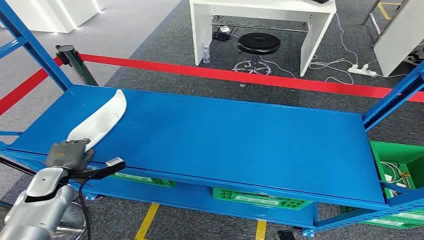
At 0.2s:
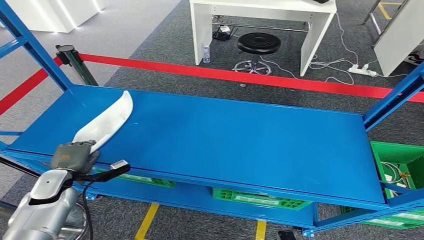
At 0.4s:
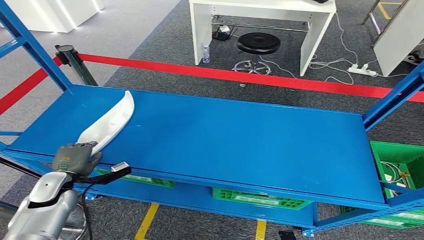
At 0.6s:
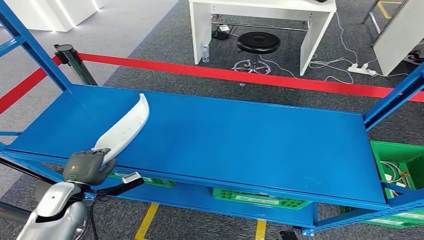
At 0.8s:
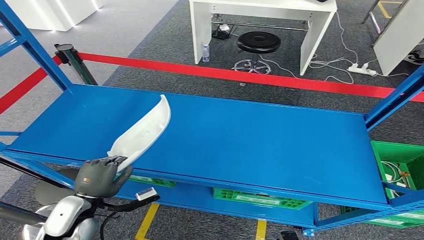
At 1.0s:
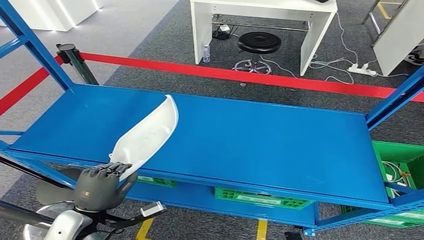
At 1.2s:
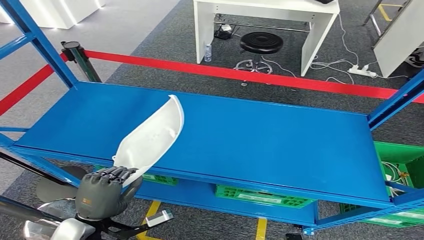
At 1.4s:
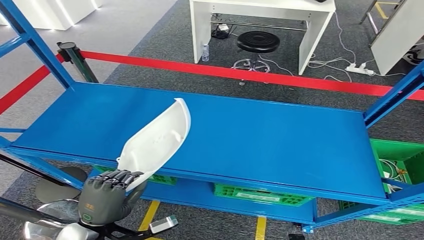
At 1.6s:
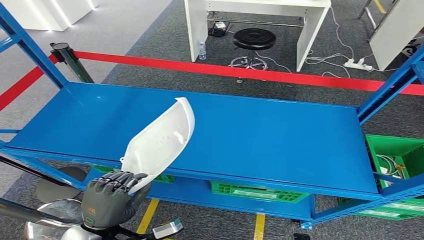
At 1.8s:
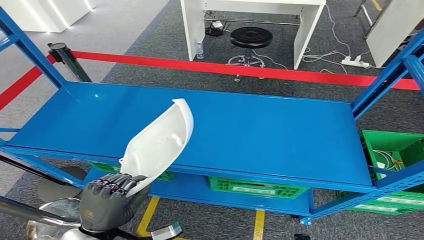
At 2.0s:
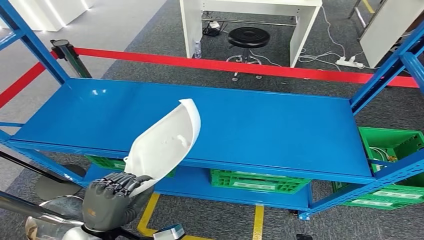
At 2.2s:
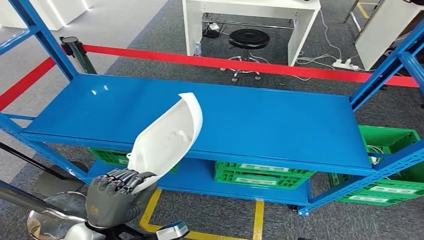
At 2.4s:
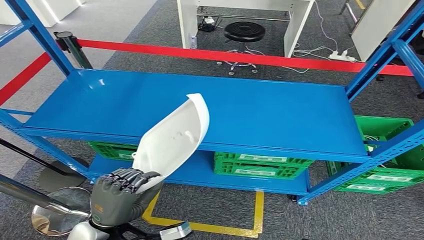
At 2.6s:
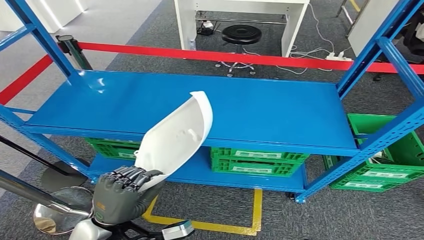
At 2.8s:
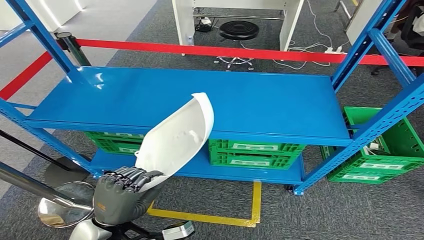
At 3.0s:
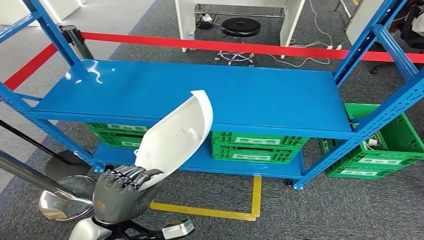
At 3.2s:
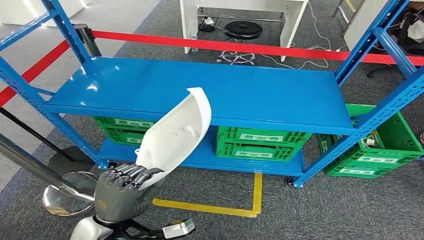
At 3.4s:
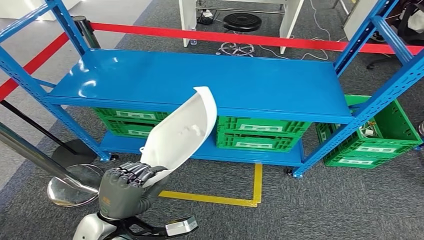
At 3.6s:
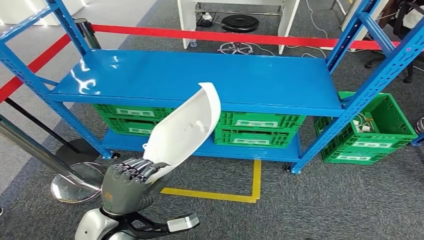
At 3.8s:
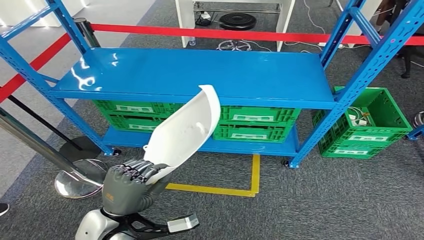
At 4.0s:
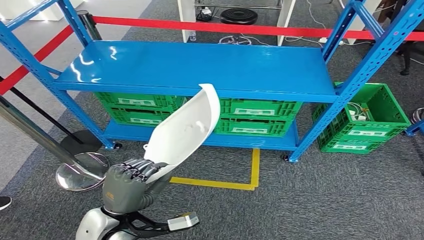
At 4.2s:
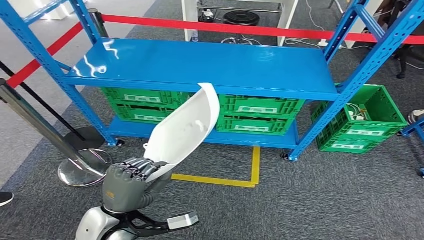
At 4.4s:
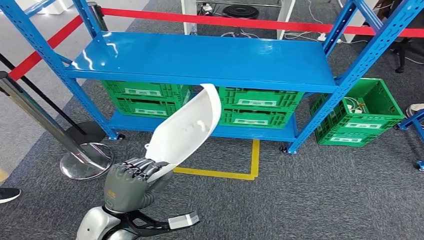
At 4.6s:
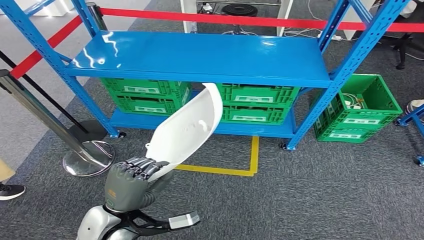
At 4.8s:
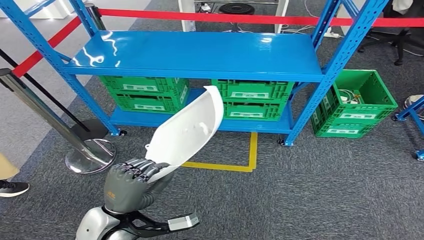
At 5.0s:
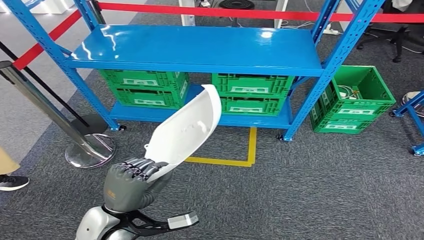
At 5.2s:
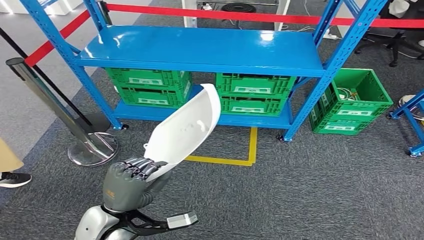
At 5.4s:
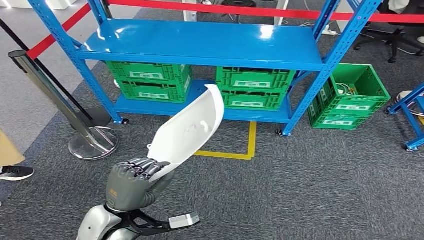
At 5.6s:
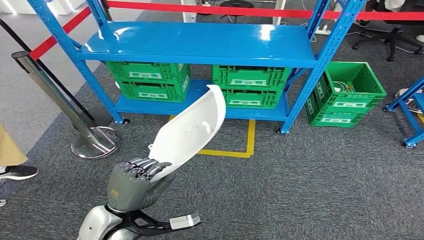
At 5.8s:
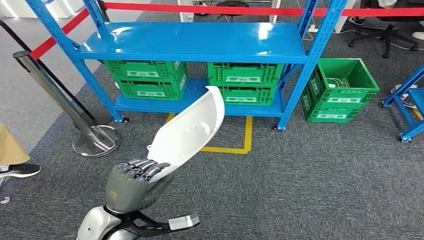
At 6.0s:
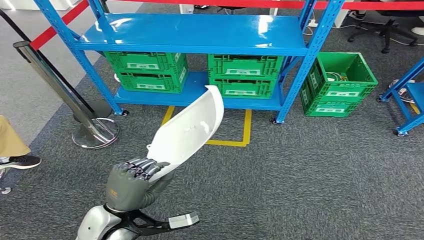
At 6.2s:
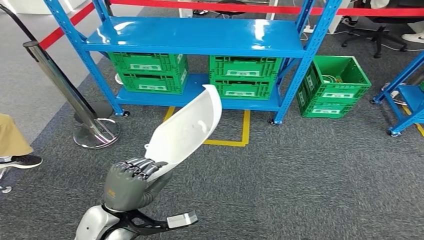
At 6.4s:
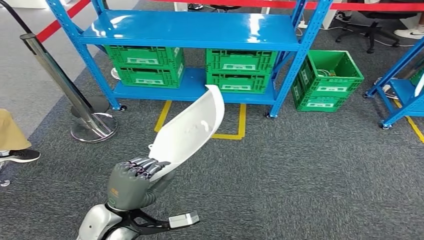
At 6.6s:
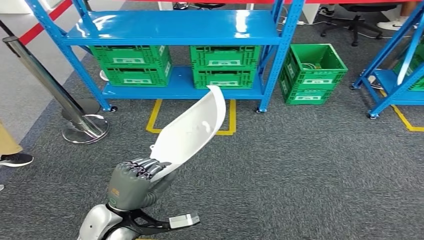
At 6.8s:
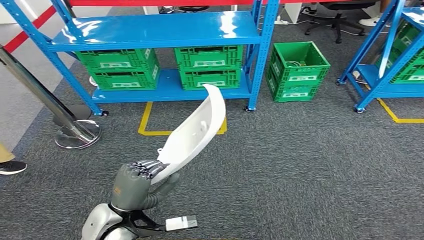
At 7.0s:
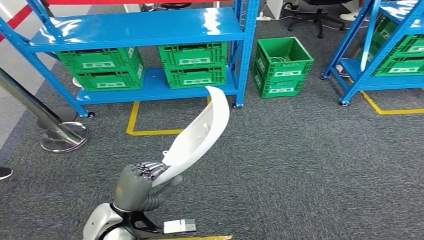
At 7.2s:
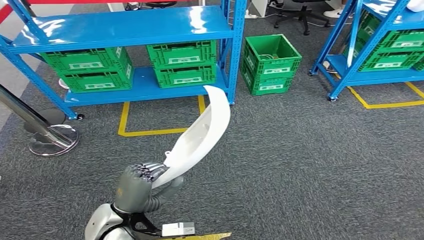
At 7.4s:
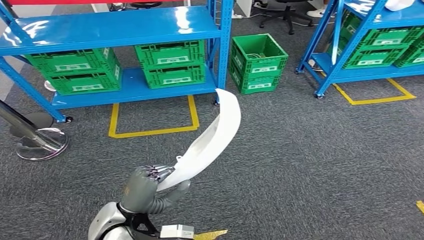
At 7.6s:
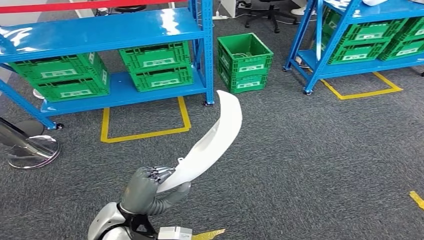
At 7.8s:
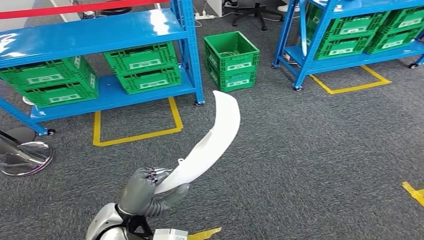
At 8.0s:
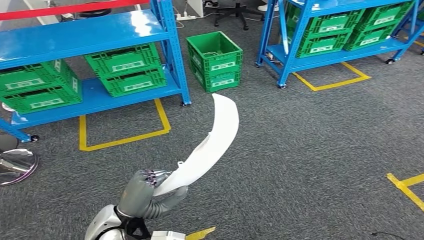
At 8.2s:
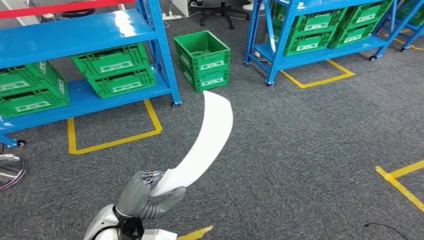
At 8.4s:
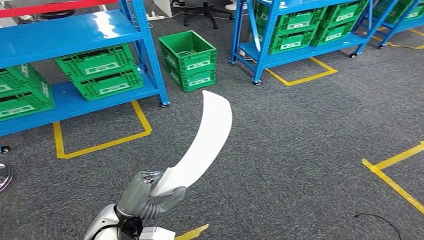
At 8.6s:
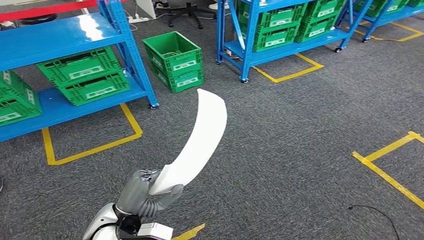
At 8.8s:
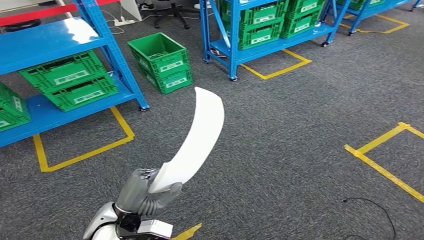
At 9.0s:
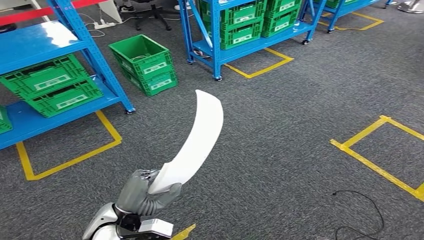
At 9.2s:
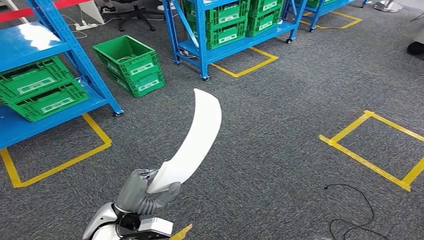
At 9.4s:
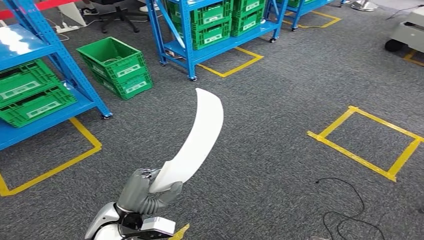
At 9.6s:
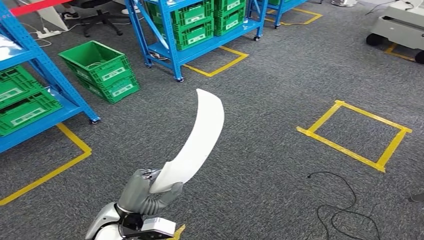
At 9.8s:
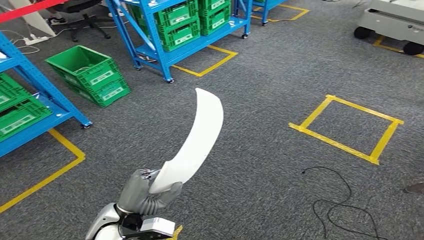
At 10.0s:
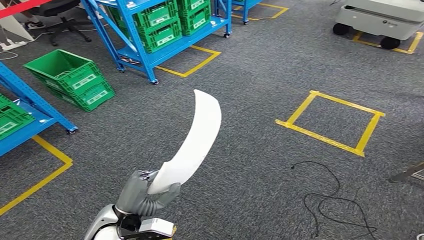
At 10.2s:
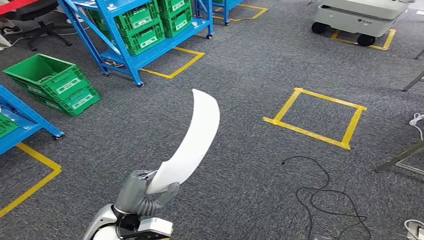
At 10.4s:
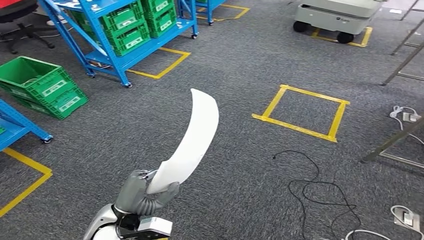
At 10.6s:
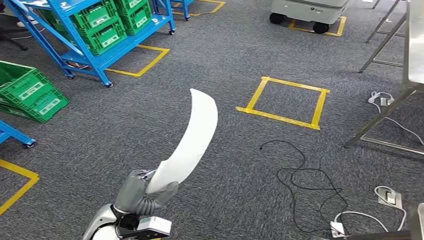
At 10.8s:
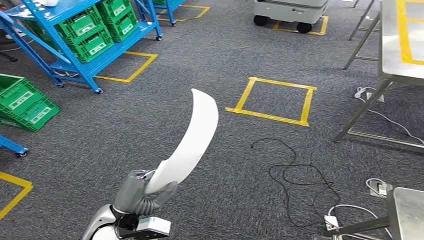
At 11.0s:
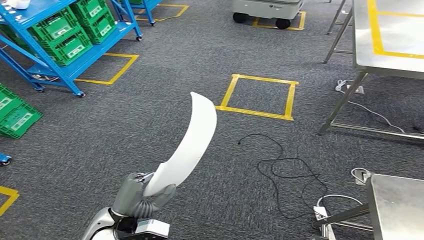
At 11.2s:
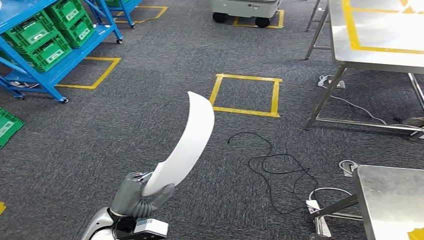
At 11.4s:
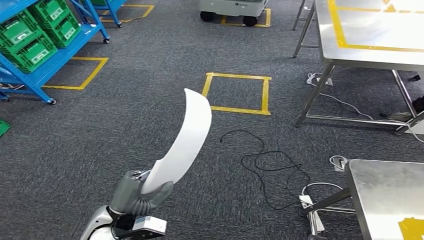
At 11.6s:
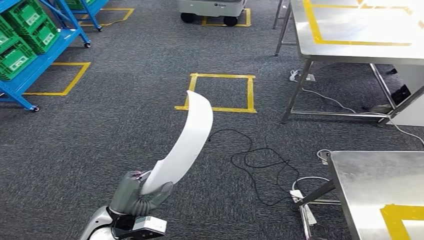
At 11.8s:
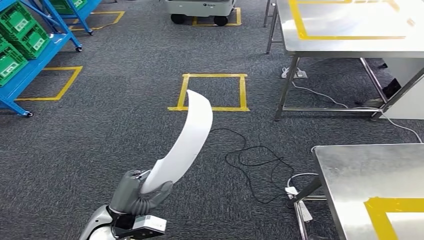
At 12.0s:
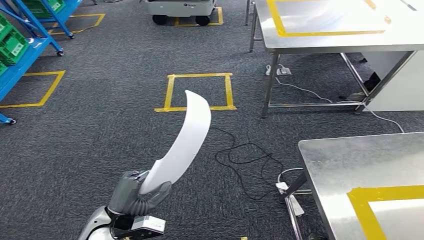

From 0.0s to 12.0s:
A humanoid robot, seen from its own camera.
Step, from 0.0s to 1.4s: Pick up the small component from the shelf.

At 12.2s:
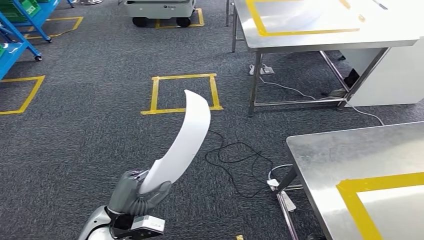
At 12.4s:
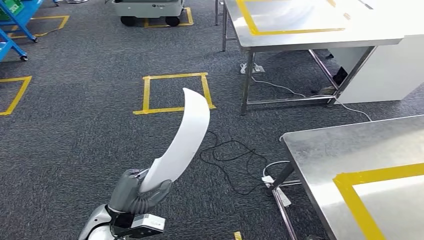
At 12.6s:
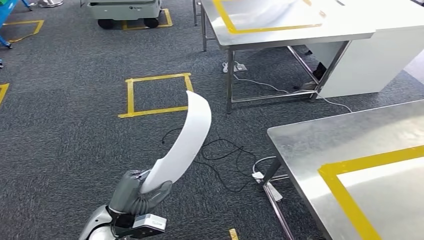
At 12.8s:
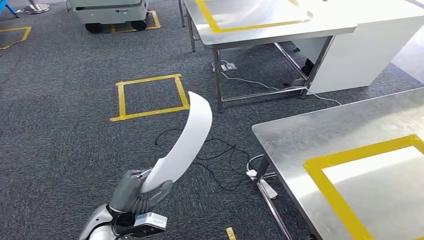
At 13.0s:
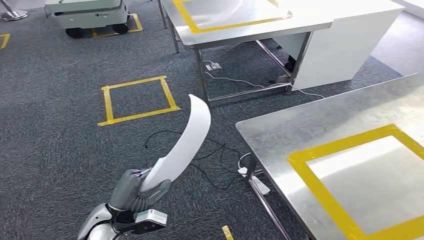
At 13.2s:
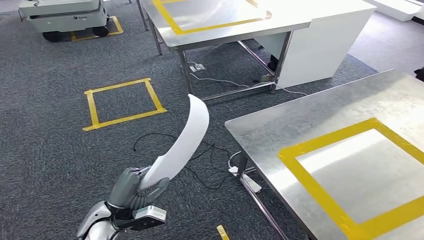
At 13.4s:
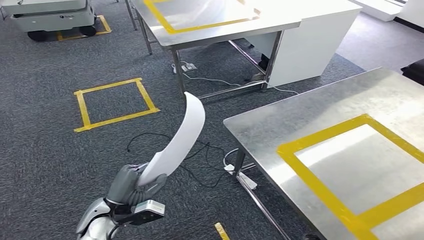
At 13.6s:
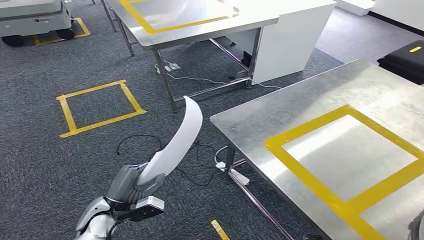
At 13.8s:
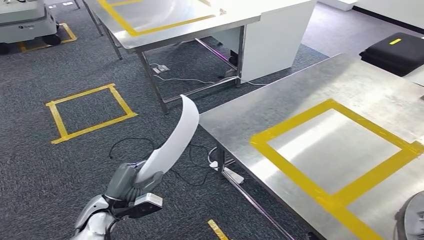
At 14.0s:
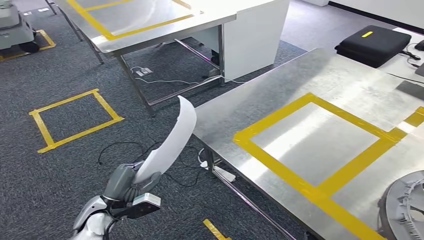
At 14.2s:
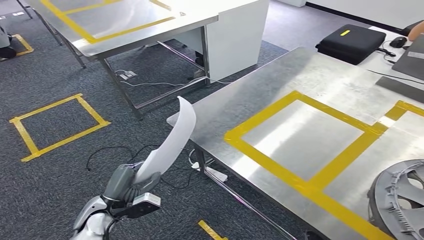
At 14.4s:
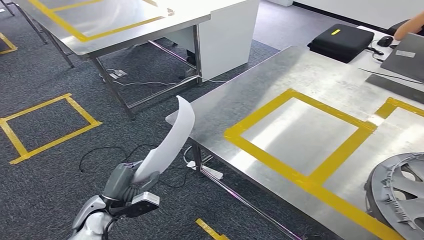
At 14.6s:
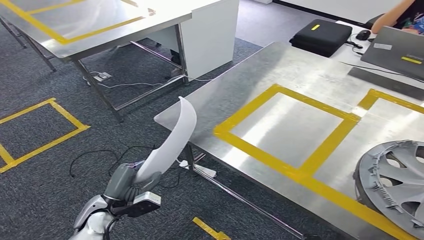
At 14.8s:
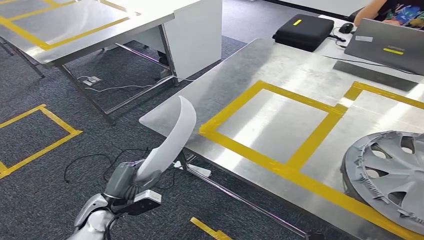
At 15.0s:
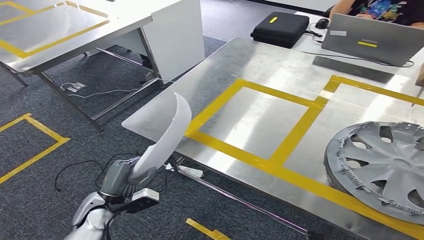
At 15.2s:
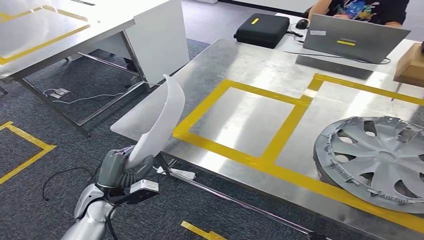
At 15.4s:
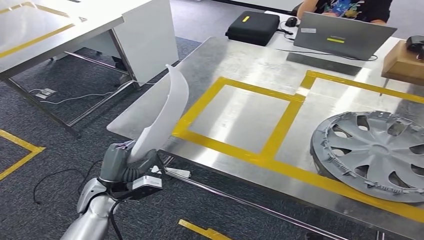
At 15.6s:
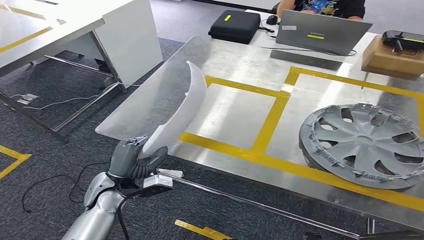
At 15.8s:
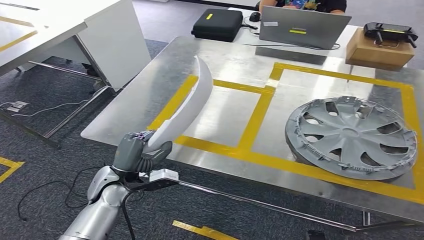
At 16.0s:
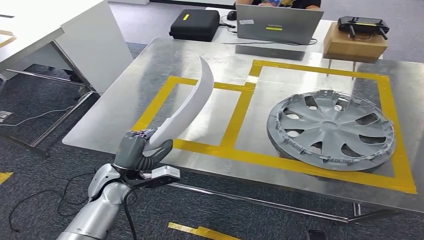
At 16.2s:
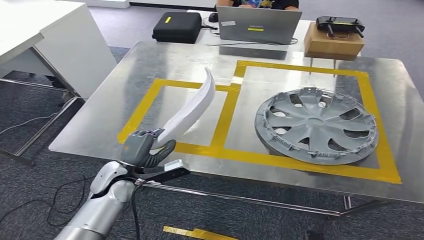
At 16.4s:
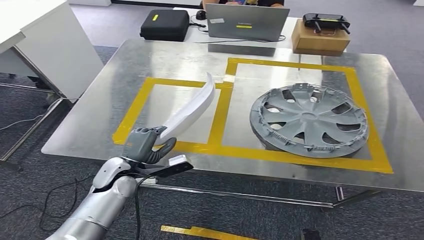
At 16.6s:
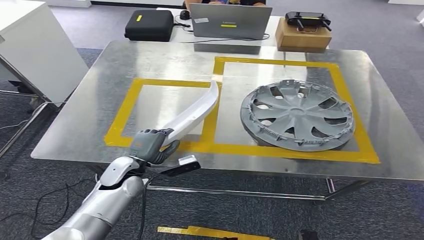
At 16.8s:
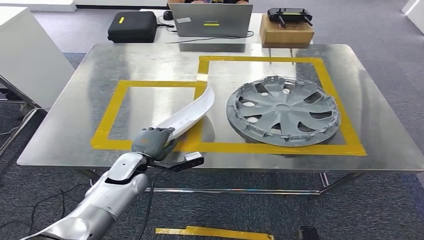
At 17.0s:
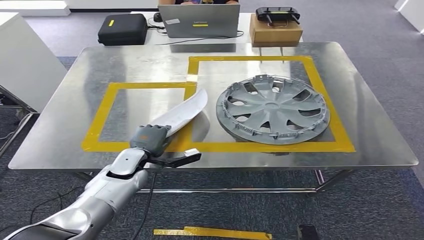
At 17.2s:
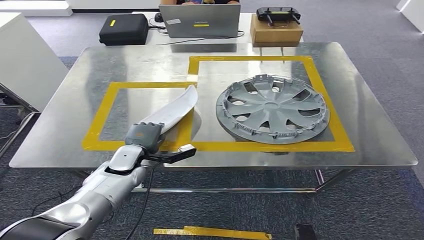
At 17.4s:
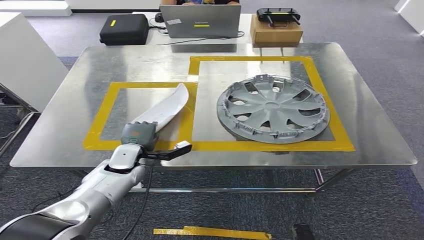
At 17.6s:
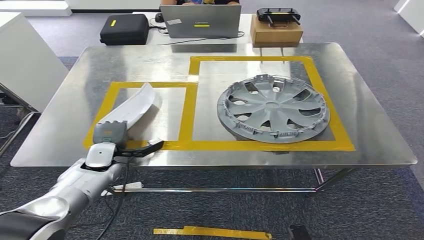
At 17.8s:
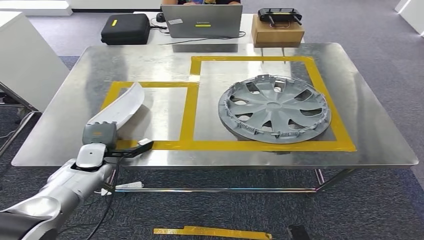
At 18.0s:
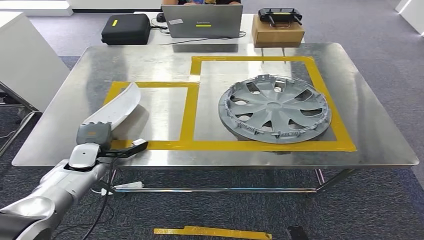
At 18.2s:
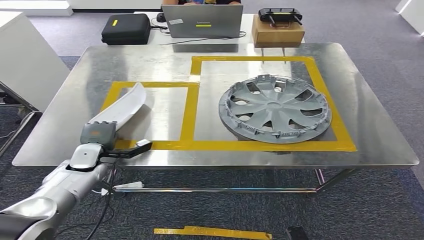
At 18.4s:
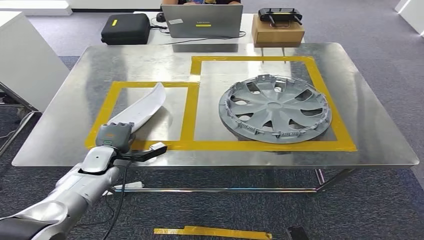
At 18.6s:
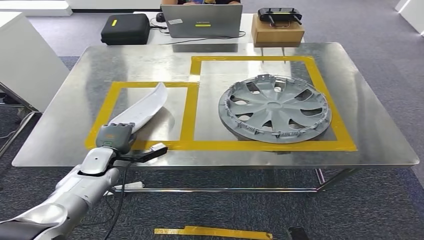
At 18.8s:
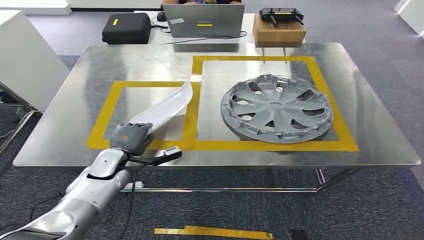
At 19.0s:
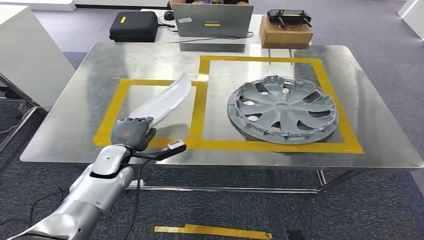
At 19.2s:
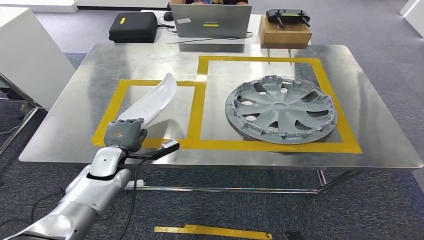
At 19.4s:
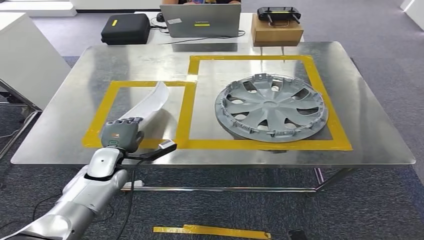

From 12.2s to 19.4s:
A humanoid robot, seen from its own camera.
Step, from 12.2s to 14.8s: Move the small component to the workbench.
From 18.0s to 19.4s: The left hand moves to the right, roughly 5 cm.
